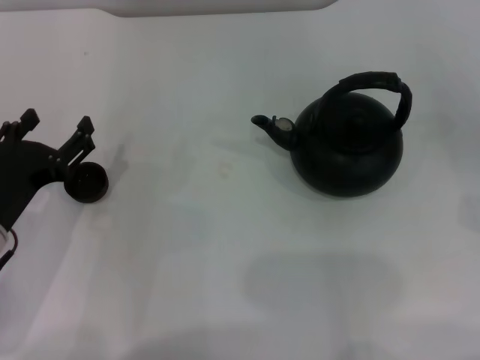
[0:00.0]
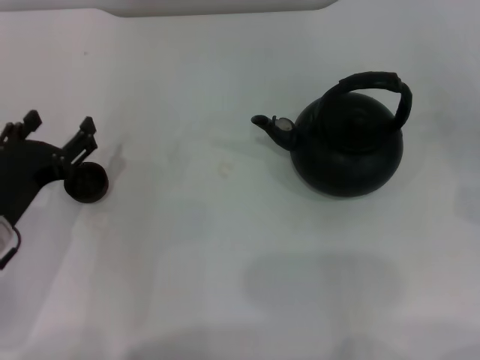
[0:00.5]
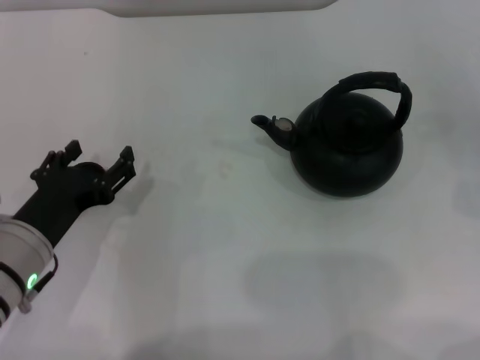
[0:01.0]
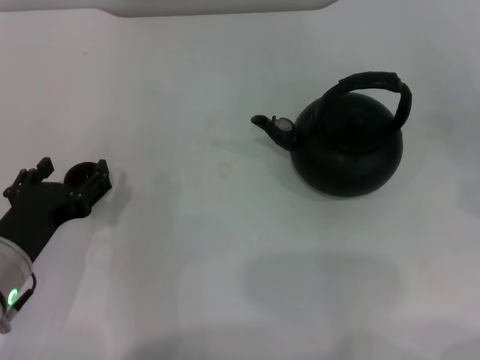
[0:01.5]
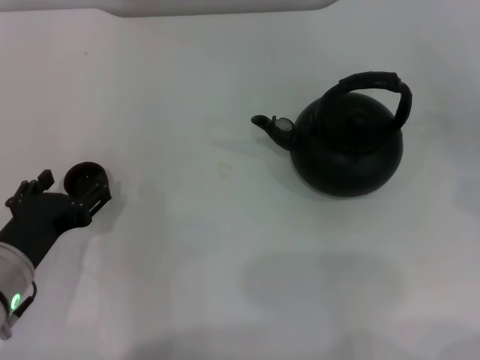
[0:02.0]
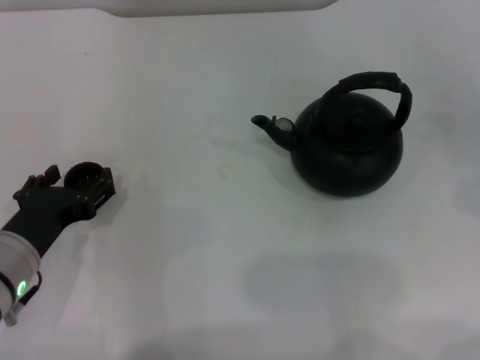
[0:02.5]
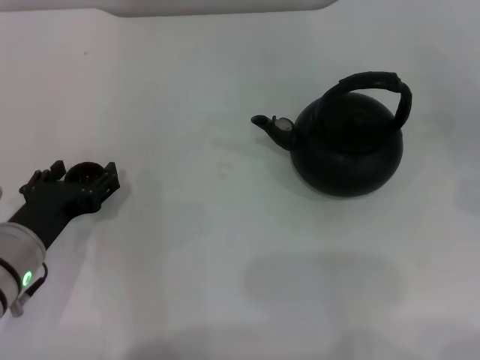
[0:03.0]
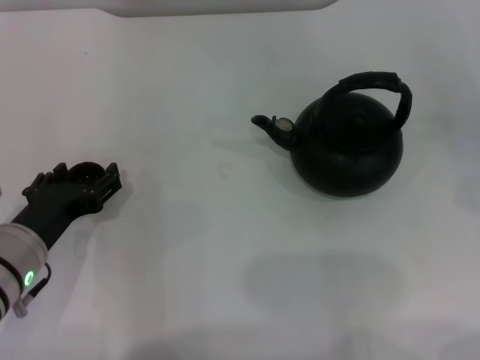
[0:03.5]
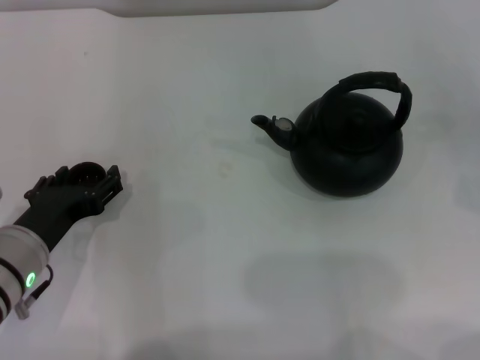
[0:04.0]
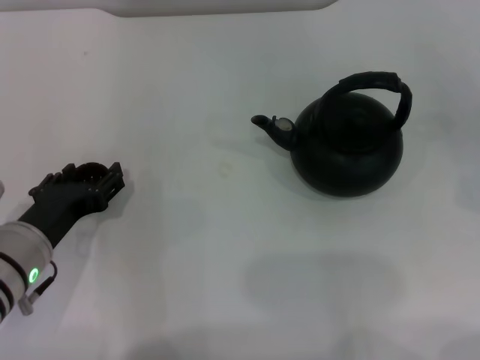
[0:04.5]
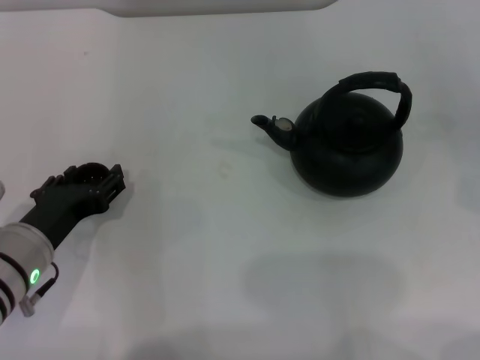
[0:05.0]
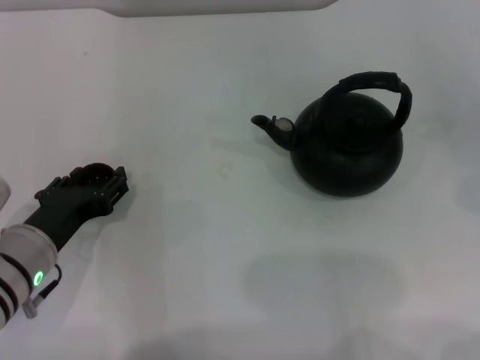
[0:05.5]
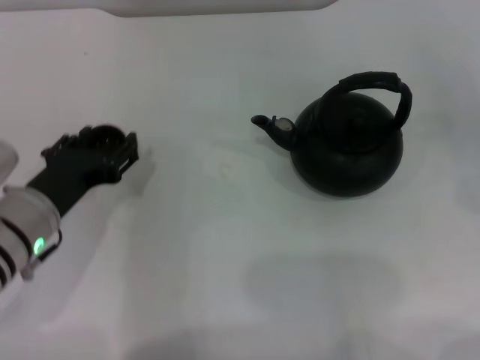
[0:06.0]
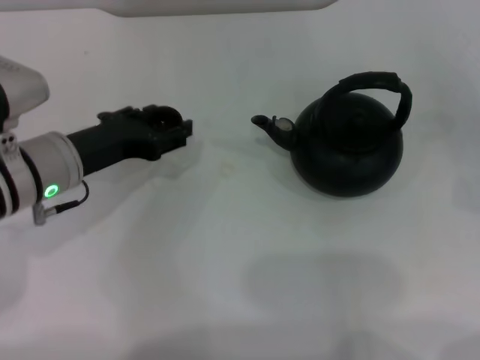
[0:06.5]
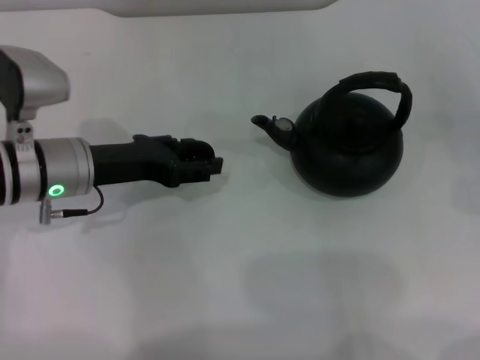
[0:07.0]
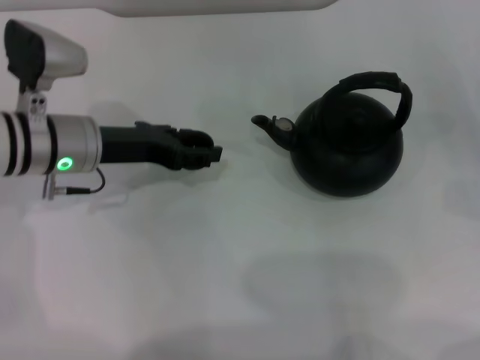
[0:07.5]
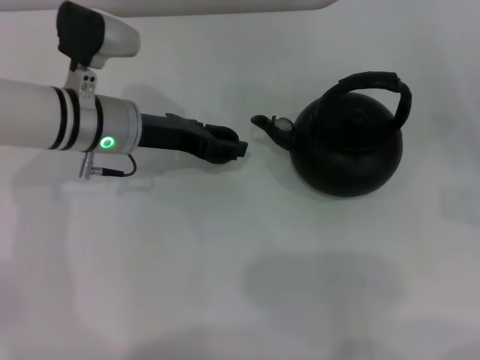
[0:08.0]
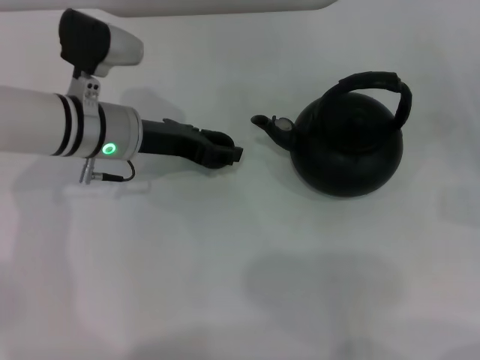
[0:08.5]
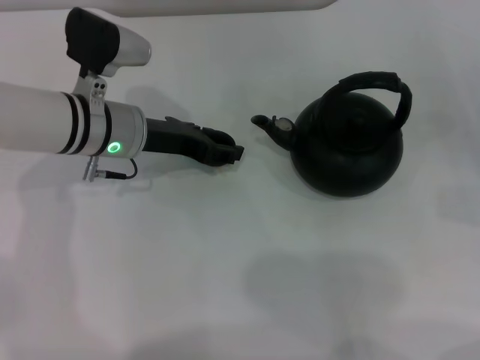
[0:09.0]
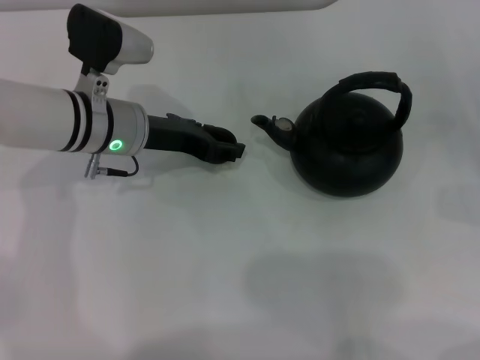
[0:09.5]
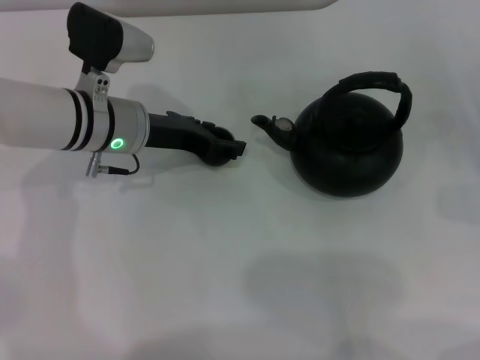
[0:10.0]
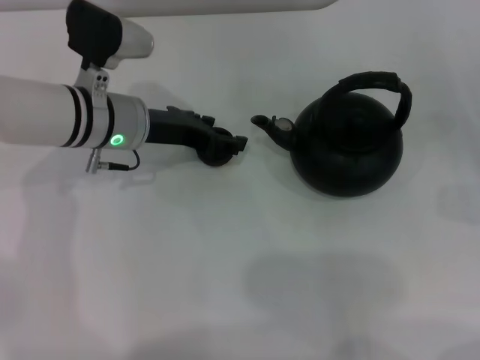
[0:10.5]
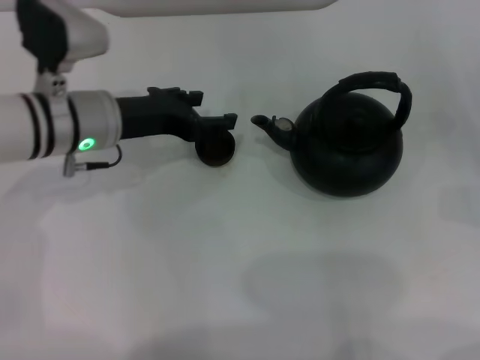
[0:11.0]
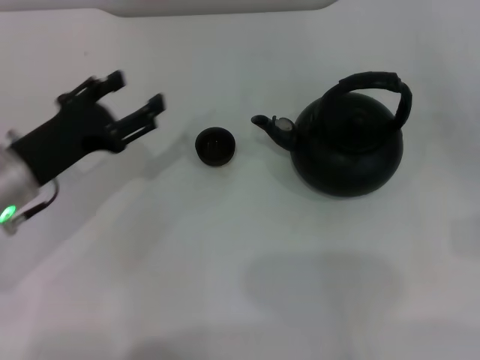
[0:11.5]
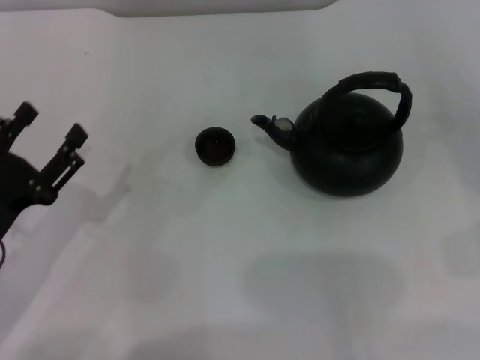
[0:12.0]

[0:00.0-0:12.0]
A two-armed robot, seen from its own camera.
Task of the whole recording: Grasp the handle of the teapot with one hand and pour tea into the teacup.
Step, 0:00.0 to 0:06.0: Pick up the teacup with the left gripper.
Step, 0:06.5 to 0:10.5: Place the teacup in the center of view with the left gripper.
0:00.0 to 0:04.0: The grippers stay close to where they were, moving slightly.
0:04.0 to 0:06.0: The left gripper closes.
0:06.0 to 0:08.0: The left gripper moves forward, some 15 cm.
0:08.0 to 0:10.0: The left gripper opens.
0:10.0 to 0:12.0: The left gripper goes roughly 20 cm backward and to the left; the right gripper goes roughly 5 cm backward.

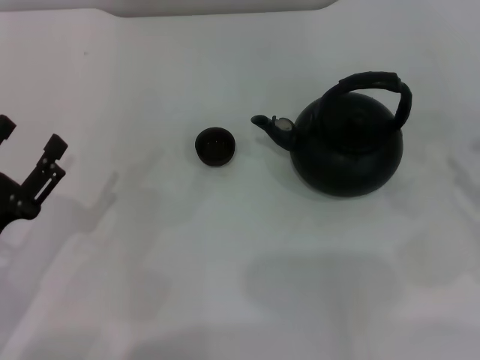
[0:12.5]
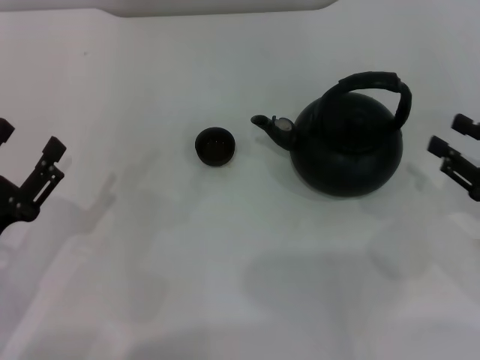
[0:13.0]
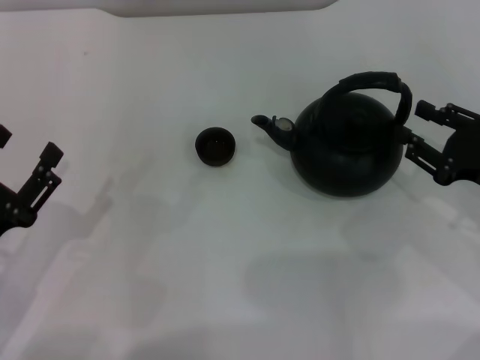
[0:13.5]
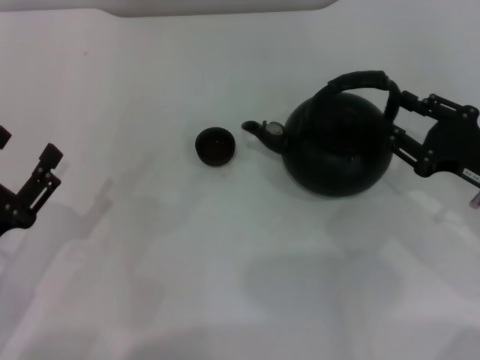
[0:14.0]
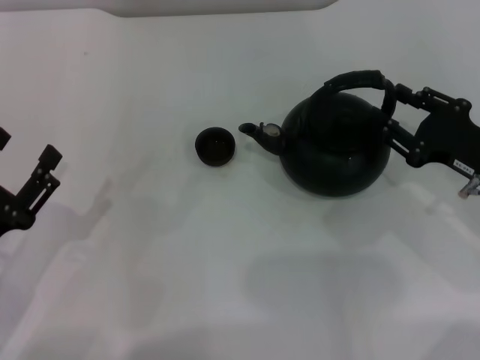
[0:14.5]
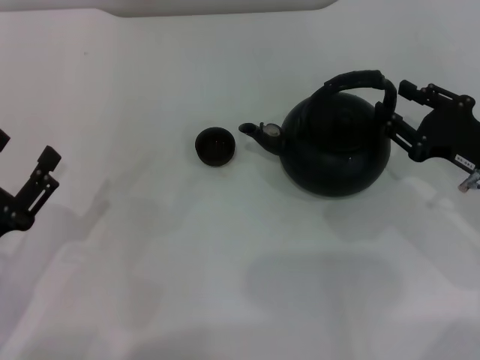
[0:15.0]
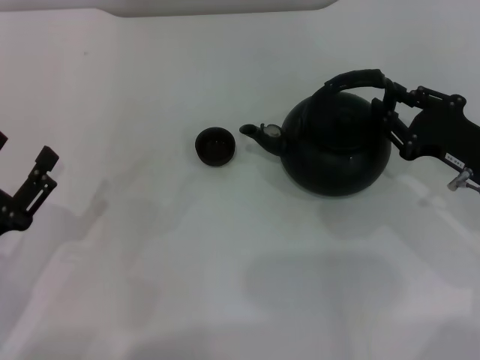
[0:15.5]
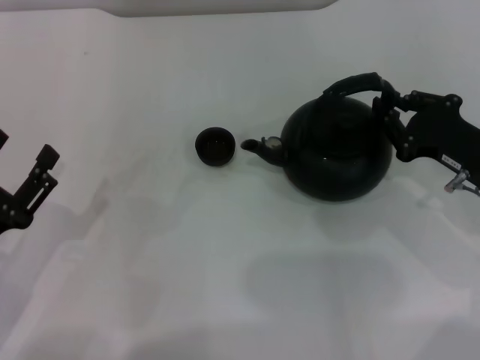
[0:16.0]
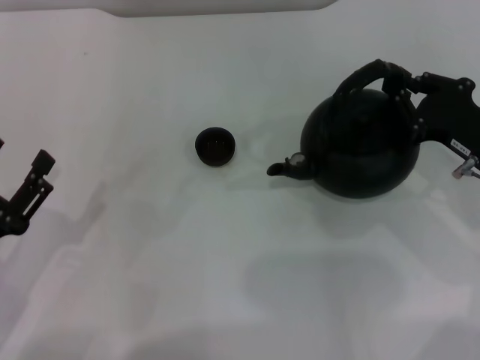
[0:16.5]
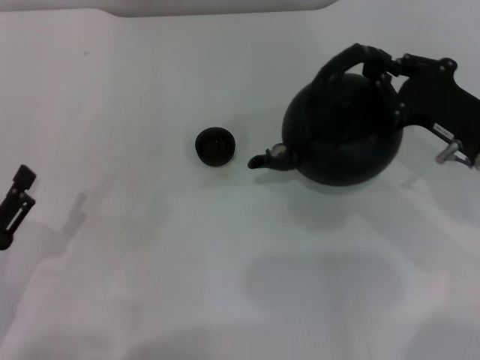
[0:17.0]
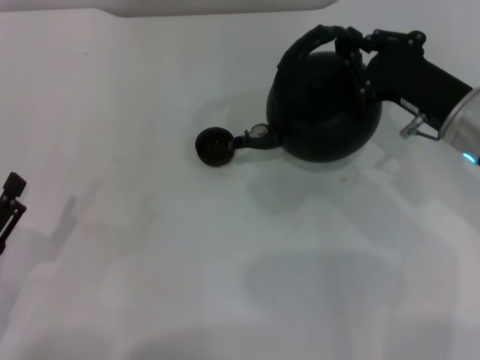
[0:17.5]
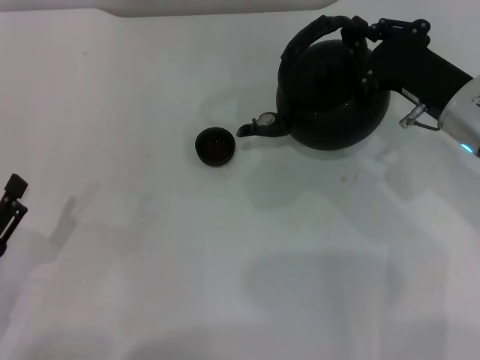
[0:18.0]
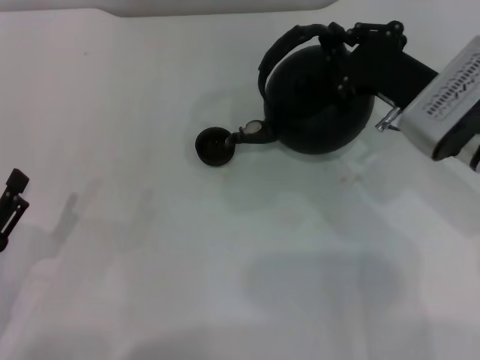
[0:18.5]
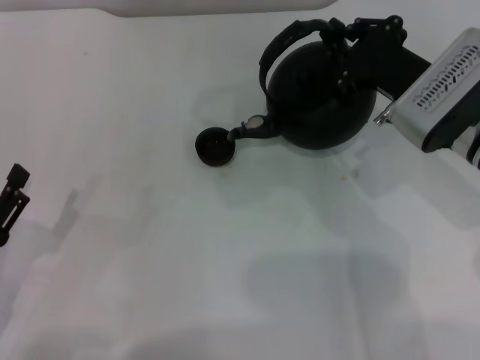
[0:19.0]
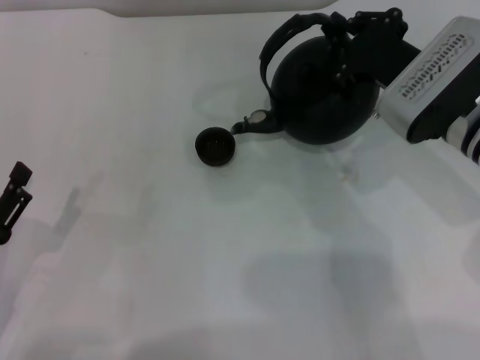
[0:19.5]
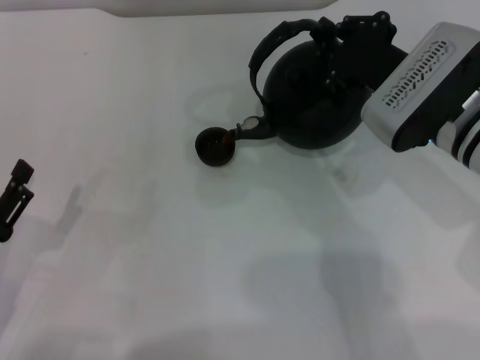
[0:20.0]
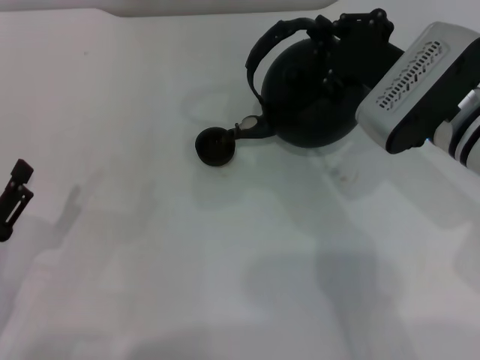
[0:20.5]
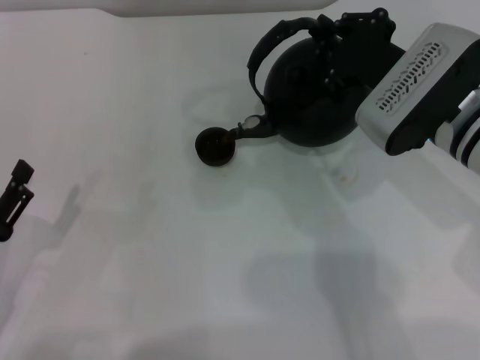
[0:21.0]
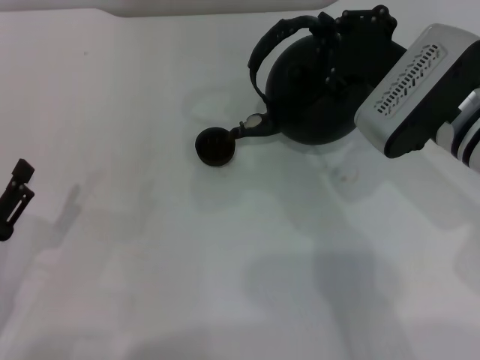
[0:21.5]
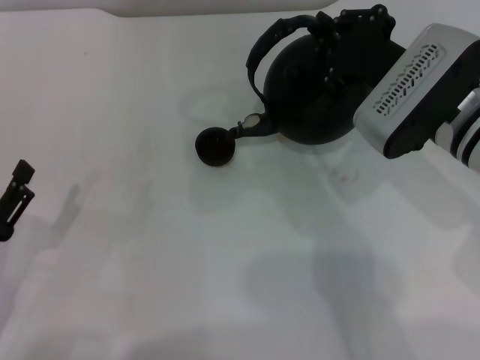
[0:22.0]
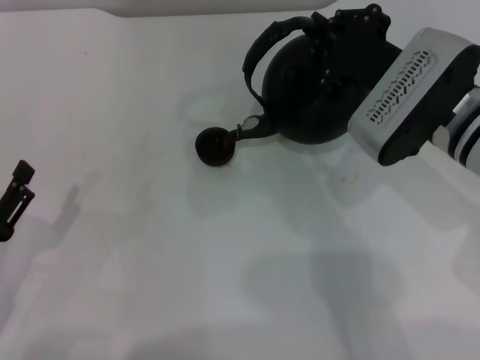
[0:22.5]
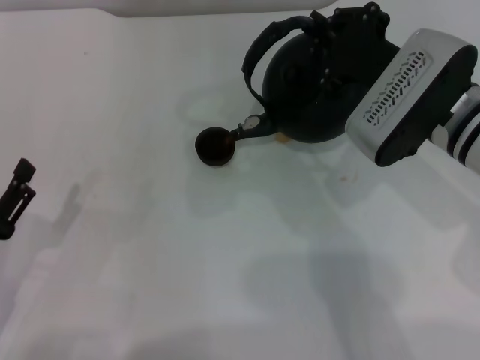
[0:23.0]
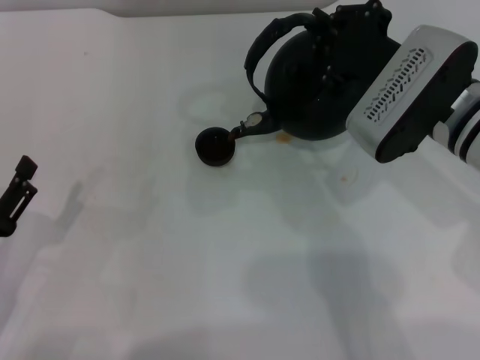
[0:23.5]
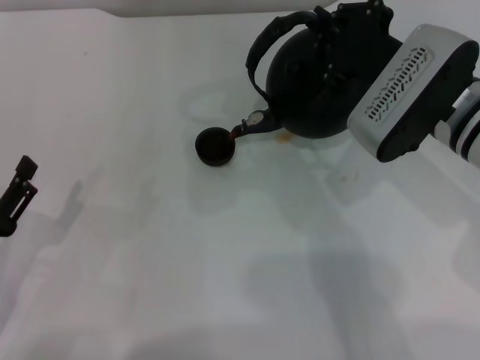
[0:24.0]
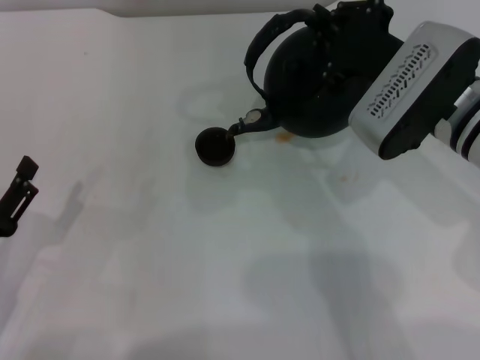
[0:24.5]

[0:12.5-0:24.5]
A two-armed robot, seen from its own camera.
Task of the whole recording: Grasp the handle of the teapot with one hand and pour tea into the teacup.
Step, 0:12.5 to 0:17.0: Pick up the teapot with the right gripper.
0:12.5 to 0:14.5: The right gripper heads to the left and forward, covering some 10 cm.
0:14.5 to 0:16.5: The right gripper closes.
0:16.5 to 0:18.5: The right gripper heads to the left, covering roughly 10 cm.
0:18.5 to 0:22.5: The grippers move only a little.
0:22.5 to 0:24.5: Both grippers stay put.

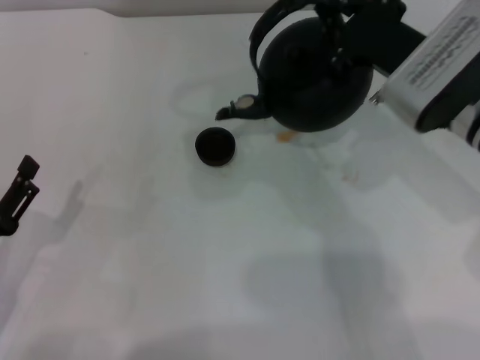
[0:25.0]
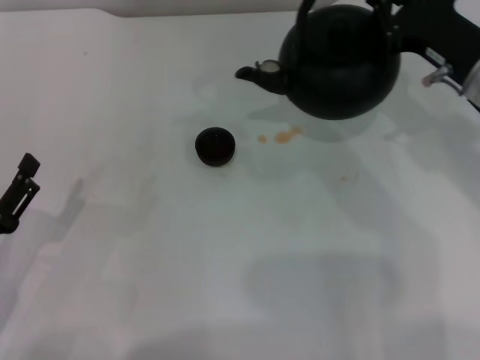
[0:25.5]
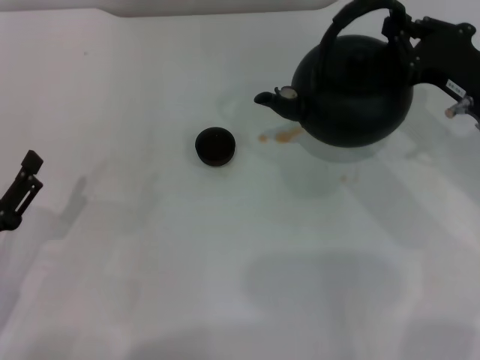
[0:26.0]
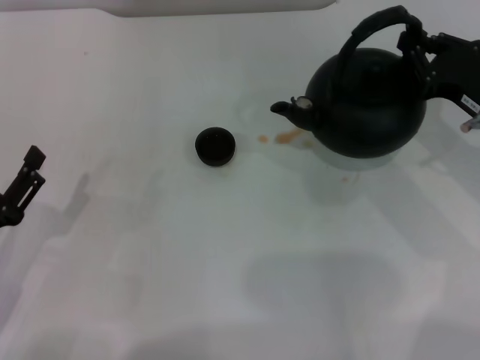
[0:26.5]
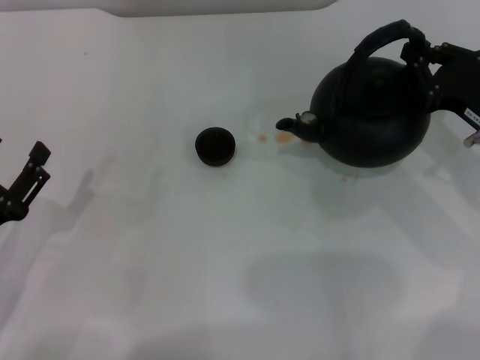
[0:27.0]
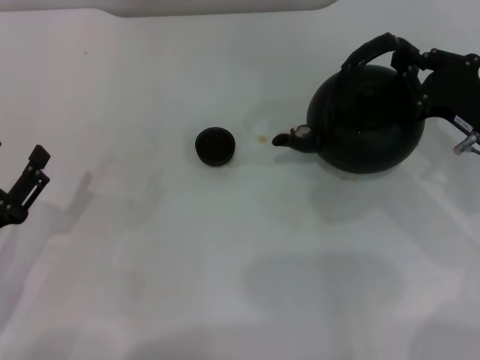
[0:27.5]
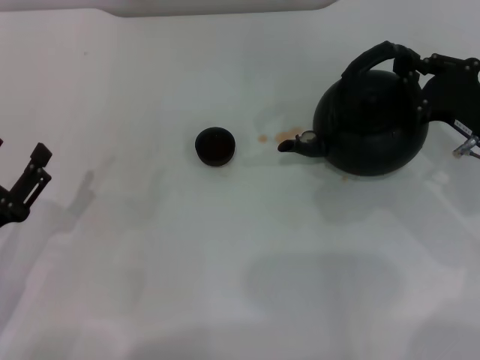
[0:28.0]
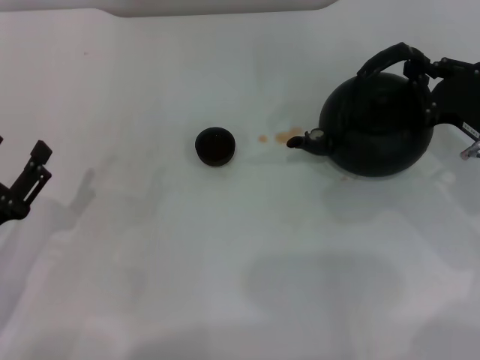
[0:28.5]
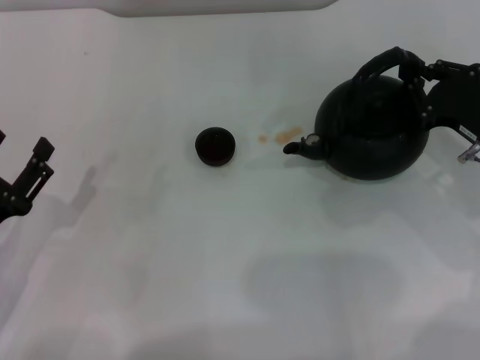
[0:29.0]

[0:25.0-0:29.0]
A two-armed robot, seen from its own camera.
Task of the whole recording: Grasp the handle of the teapot with one hand and pour tea into the teacup.
0:25.0 to 0:27.0: The right gripper heads to the right and downward, covering about 10 cm.
0:27.0 to 0:29.0: There are only small adjustments of the grippers.
